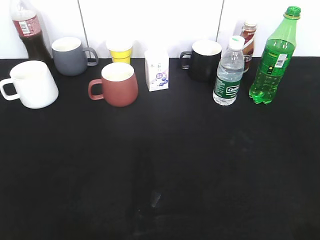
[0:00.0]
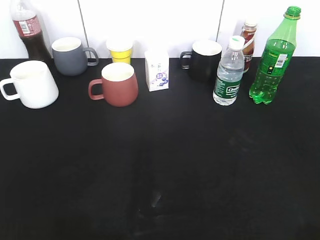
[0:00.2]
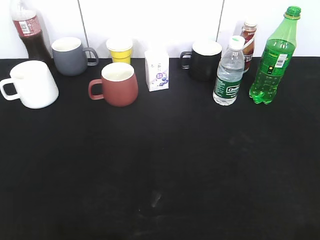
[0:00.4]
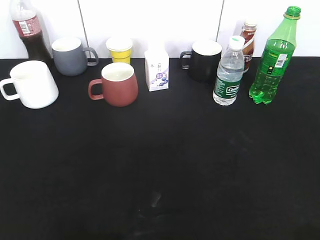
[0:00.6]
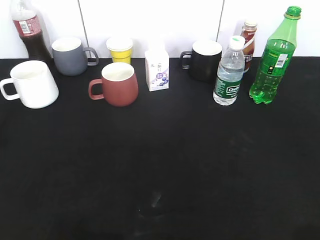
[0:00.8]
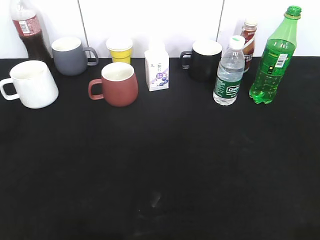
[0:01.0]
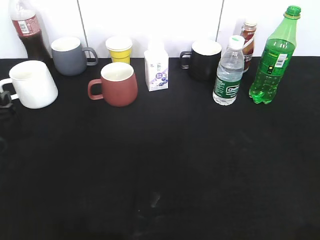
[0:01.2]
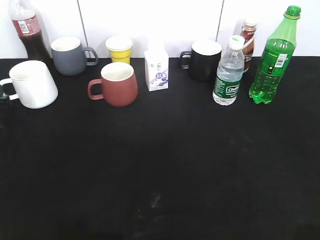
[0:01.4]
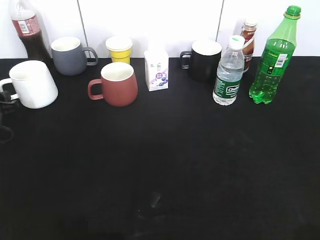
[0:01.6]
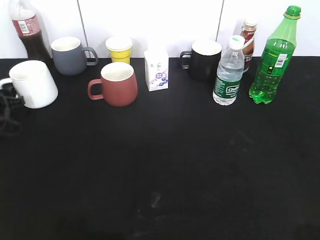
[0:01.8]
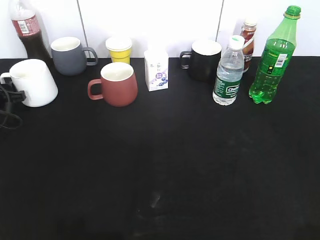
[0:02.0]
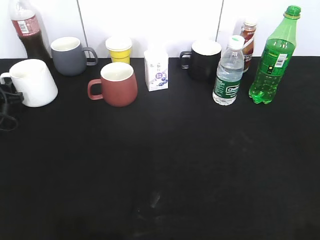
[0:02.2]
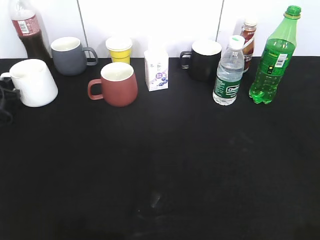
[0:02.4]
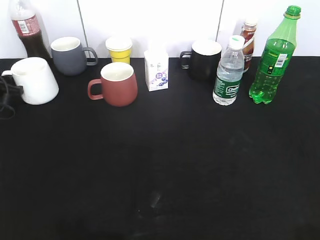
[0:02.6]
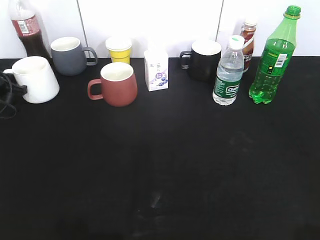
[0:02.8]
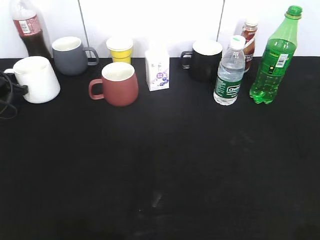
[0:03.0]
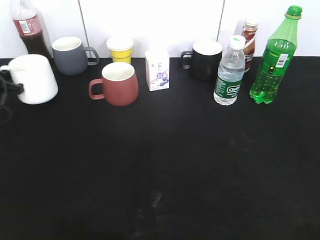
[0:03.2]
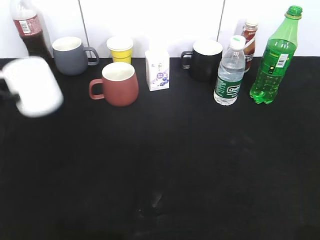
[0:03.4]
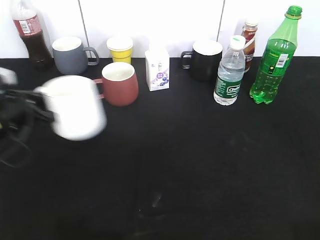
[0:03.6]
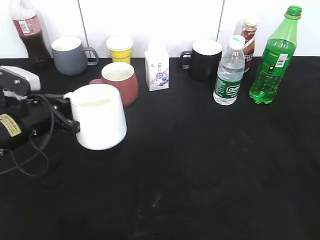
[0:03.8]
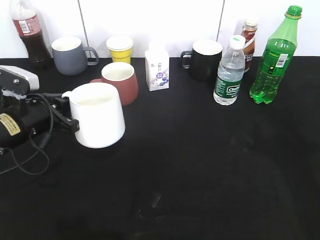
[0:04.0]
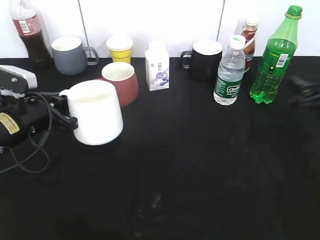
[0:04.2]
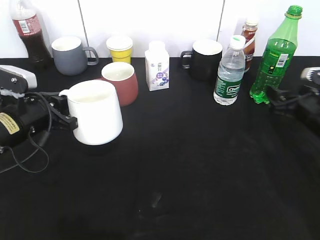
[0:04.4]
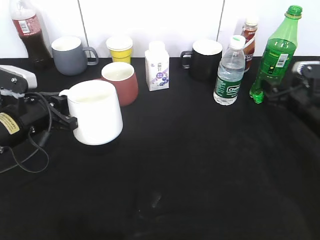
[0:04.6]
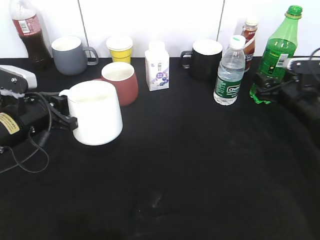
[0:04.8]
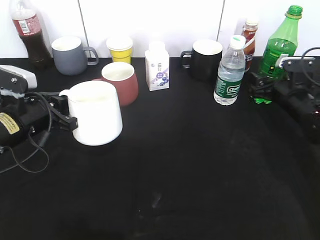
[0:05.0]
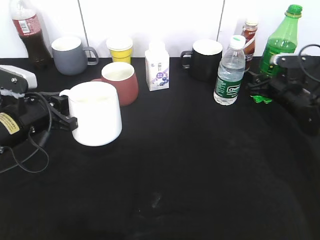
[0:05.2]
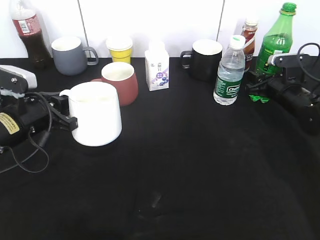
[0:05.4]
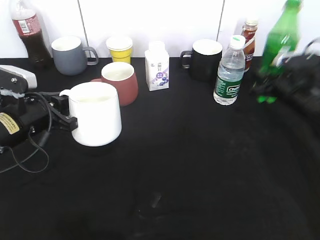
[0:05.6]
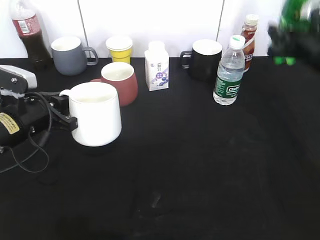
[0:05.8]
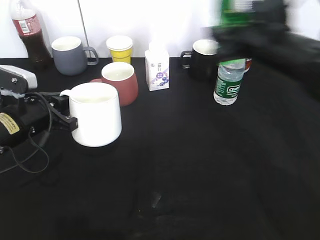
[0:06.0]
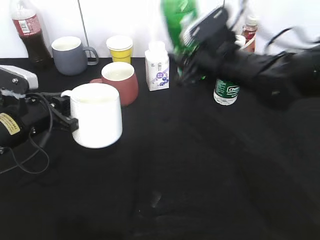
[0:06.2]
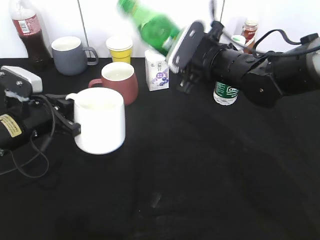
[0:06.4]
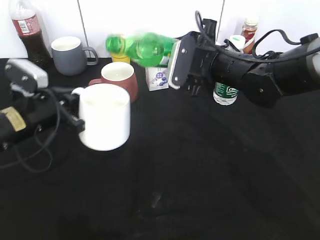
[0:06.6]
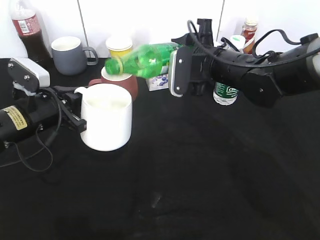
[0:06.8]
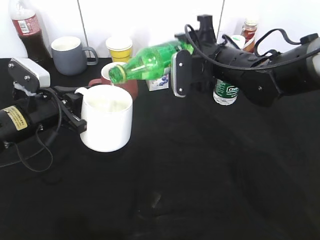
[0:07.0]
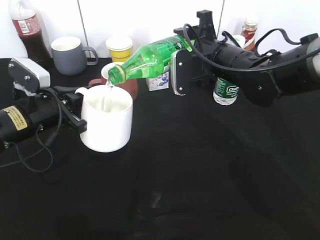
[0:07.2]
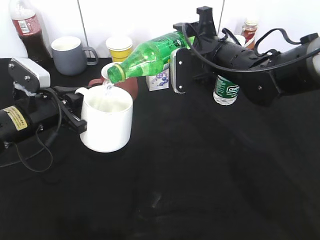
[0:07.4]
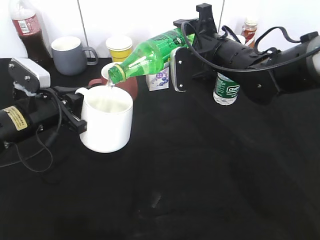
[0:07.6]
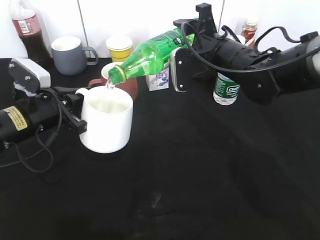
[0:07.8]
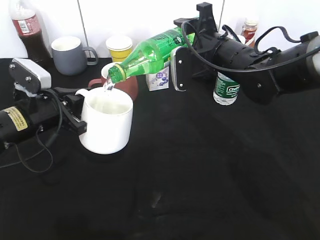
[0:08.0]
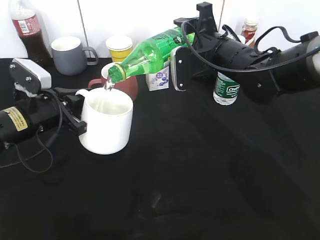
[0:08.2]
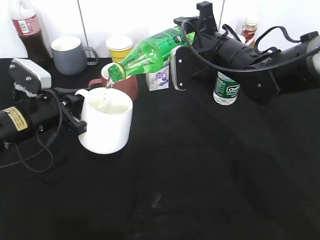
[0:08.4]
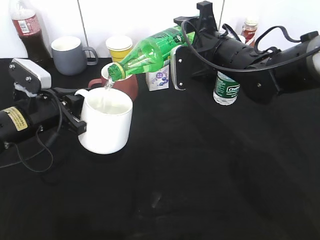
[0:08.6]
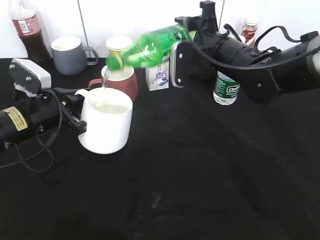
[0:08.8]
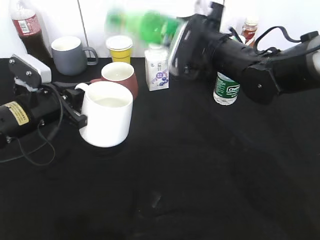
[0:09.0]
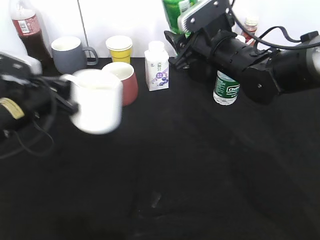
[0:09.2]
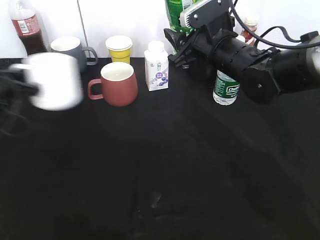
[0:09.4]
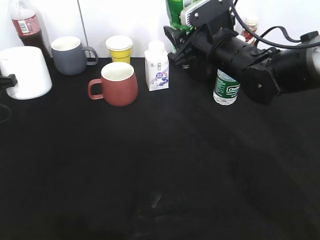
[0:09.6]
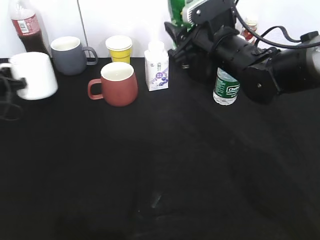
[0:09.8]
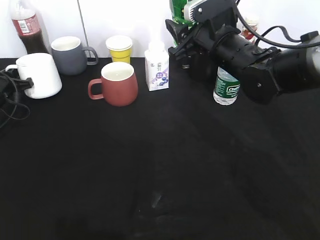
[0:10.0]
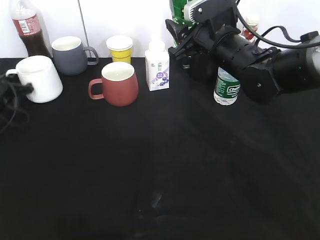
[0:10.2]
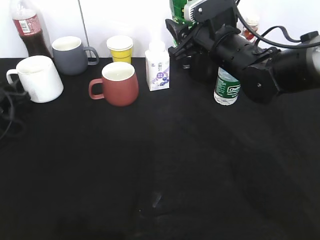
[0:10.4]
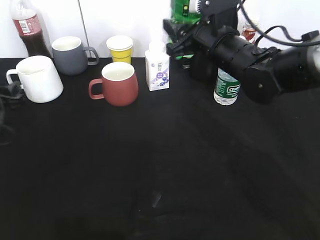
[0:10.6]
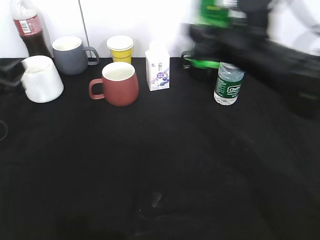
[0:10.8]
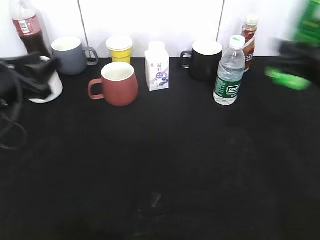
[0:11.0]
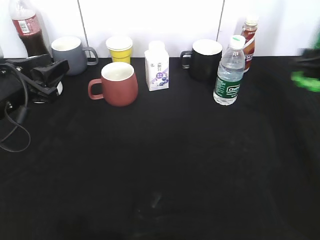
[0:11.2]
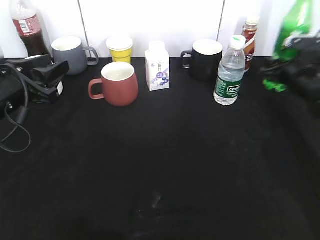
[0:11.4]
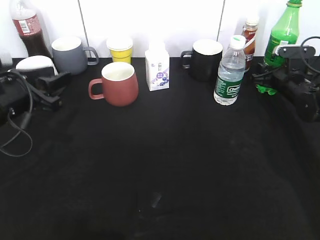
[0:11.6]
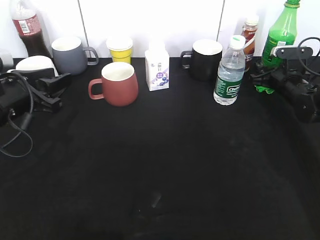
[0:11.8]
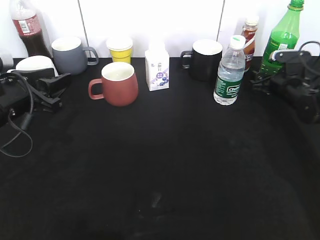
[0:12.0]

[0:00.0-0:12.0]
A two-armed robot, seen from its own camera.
Step, 0:00.0 to 0:02.8: Grasp the white cup with left gripper.
Step, 0:03.0 to 0:03.8: Lift the white cup with left gripper.
Step, 0:04.0 to 0:05.4: Grasp the bottle with sprite with right gripper.
Step, 0:05.6 to 0:08.8: Pour the sprite from bottle to cup with right gripper.
Step, 0:09.2 to 0:10.4: Place the white cup on the table with left gripper.
0:00.0 to 0:01.6: The left gripper shifts roughly 40 cm forward and downward.
0:01.6 to 0:03.0: The left gripper shifts roughly 10 cm forward, and closes its fingers.
0:03.0 to 0:04.4: The left gripper goes some 20 cm to the right and backward. The right gripper travels forward and downward by some 35 cm, and opens up.
0:04.4 to 0:06.0: The right gripper heads to the left and upward, covering about 20 cm, and closes.
0:06.0 to 0:07.6: The right gripper ends up approximately 5 cm from where it was.
0:09.0 to 0:10.4: The left gripper moves to the left, forward and downward, approximately 20 cm, and opens its fingers.
0:10.4 to 0:12.0: The left gripper heads to the right, upward and backward, covering about 20 cm. The right gripper heads to the right and downward, covering about 25 cm, and opens.

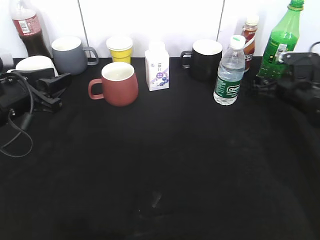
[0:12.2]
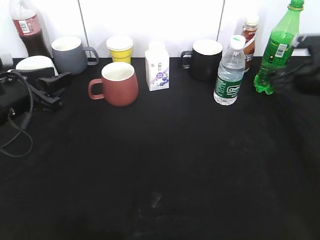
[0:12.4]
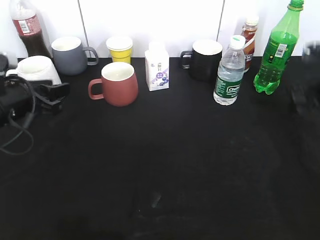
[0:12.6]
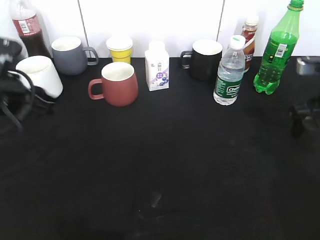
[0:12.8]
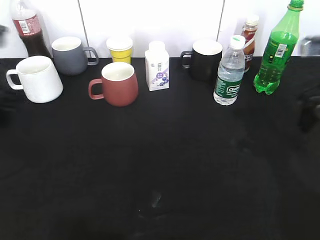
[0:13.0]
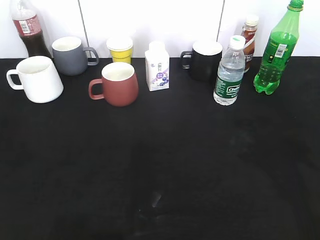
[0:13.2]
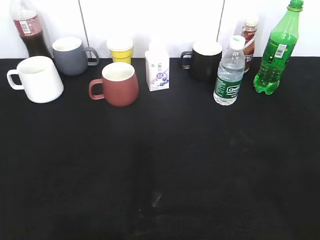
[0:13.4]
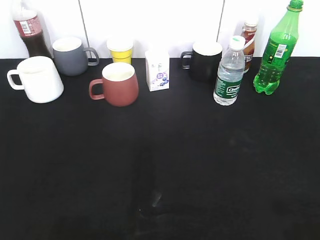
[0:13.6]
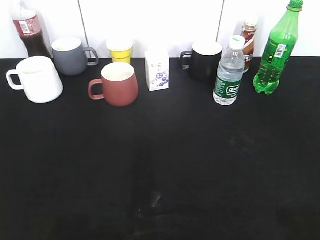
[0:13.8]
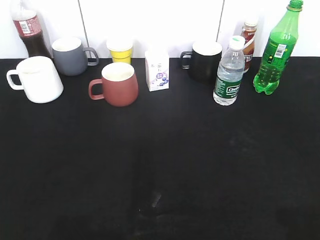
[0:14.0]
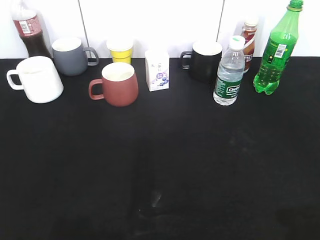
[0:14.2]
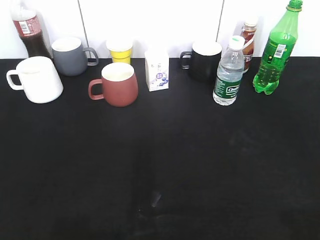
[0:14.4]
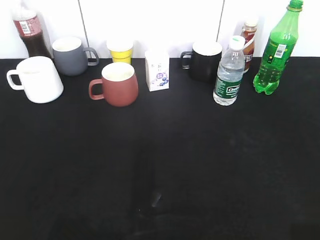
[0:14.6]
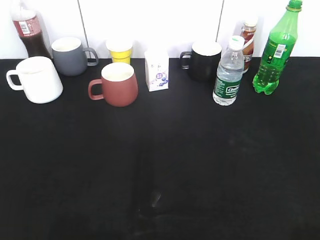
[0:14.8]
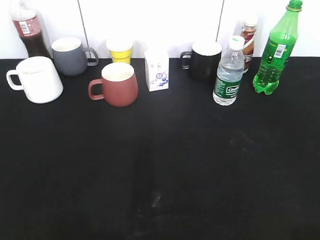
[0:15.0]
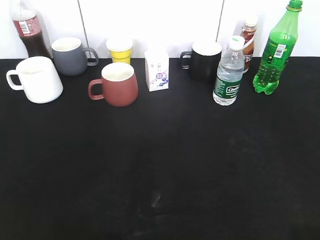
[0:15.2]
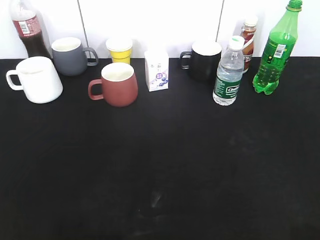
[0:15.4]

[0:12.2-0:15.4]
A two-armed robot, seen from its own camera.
0:12.2 to 0:13.8: The grippers both shift backward and upward by about 35 cm.

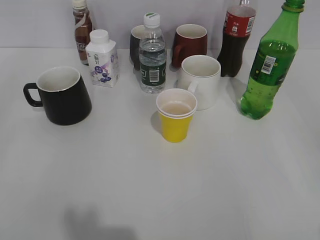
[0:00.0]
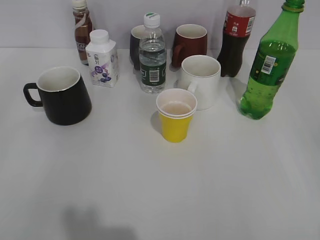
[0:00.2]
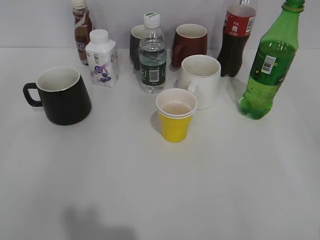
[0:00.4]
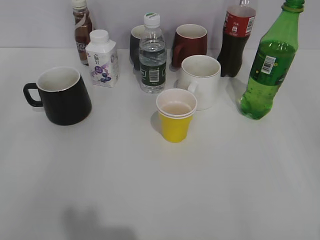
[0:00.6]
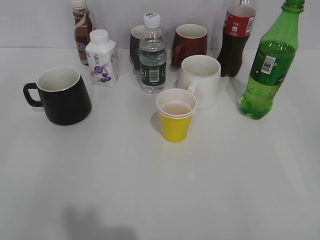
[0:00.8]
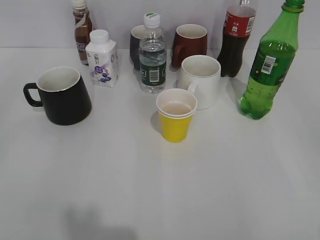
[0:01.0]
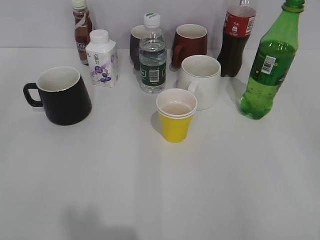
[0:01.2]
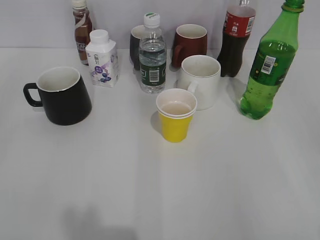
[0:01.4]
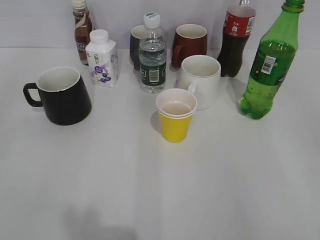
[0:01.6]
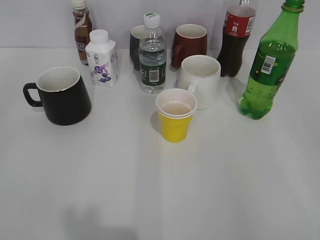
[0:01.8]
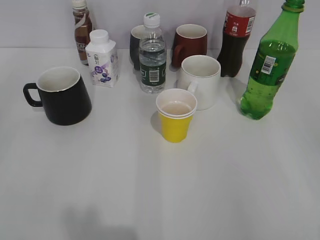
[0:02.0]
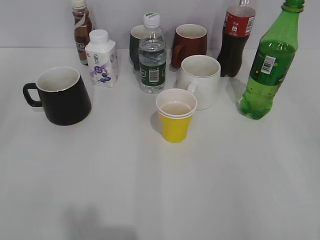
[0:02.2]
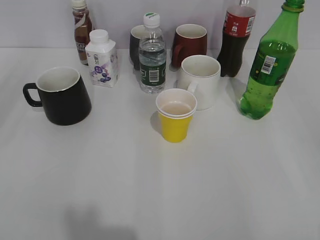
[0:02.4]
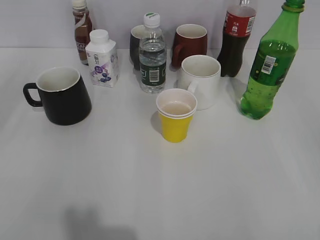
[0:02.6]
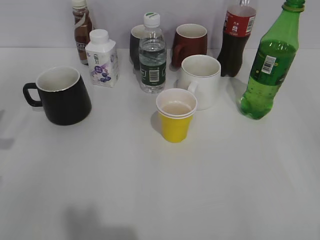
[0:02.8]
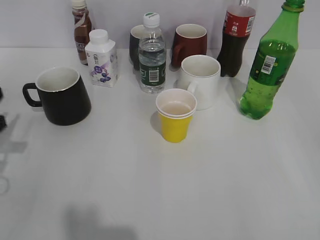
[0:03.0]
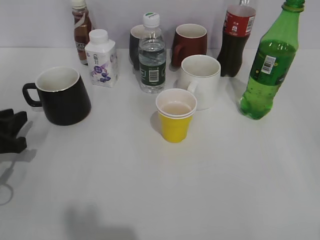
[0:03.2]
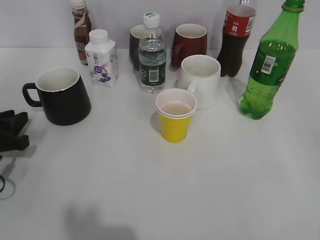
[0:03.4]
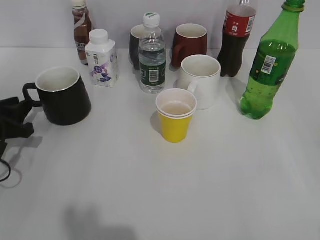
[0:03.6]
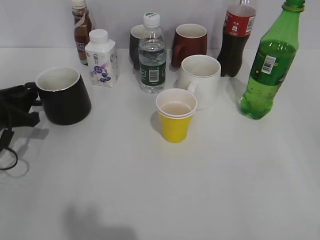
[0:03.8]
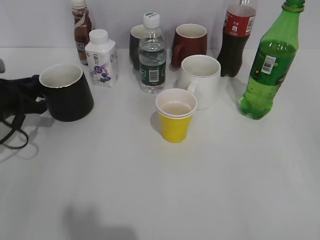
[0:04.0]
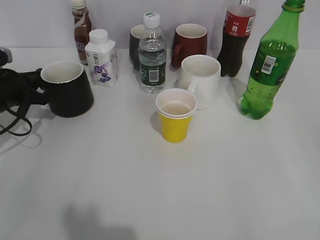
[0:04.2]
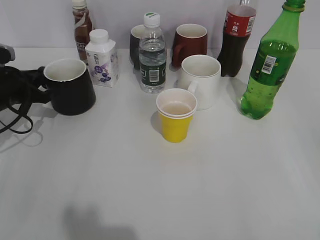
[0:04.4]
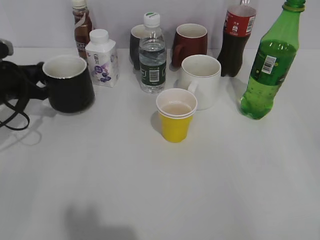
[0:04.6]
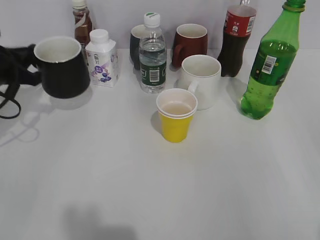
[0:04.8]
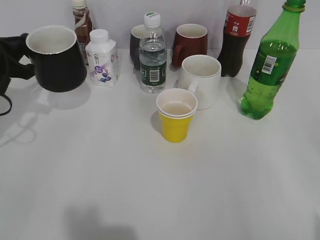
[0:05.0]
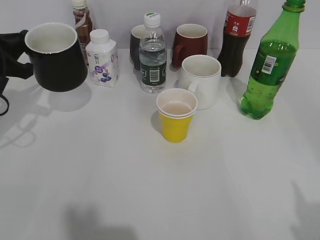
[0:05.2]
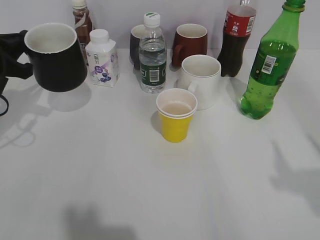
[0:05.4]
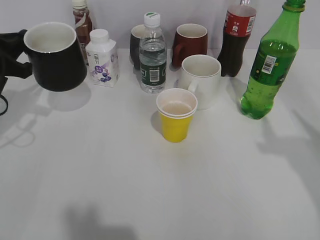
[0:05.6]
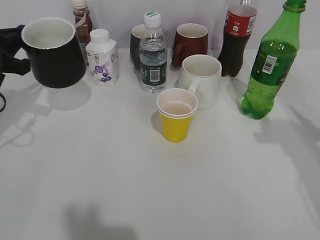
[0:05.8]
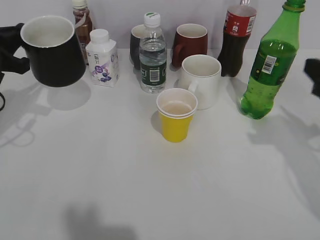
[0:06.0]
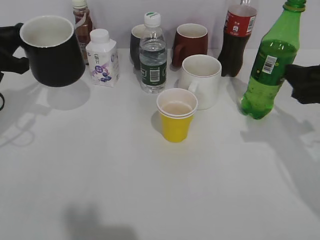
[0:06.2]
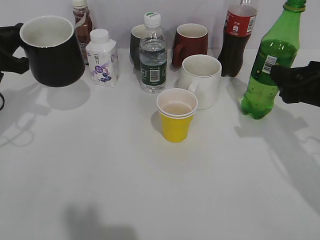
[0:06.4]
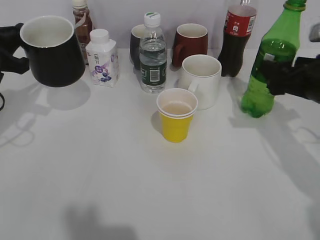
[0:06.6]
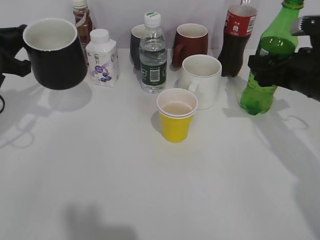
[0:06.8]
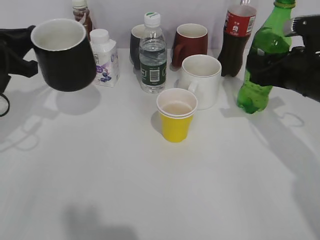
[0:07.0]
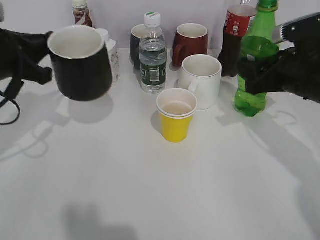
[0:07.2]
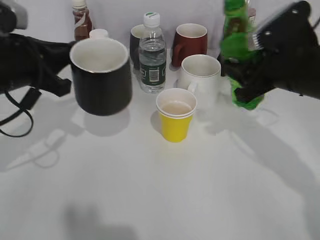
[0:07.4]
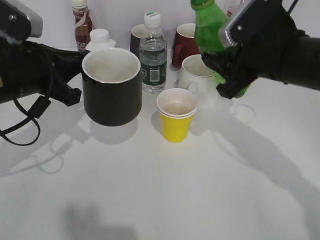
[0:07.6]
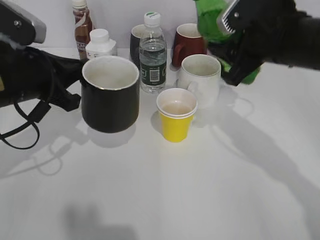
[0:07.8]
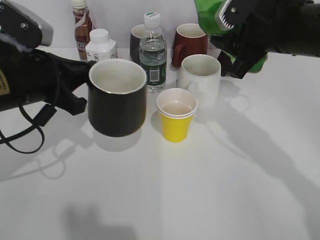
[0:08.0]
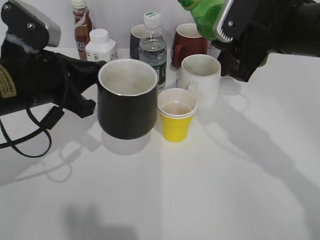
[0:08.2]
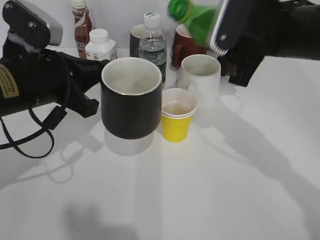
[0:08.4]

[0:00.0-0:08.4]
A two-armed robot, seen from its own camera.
Step, 0:01.8 to 0:04.2: Grasp the black cup with left gripper.
Step, 0:04.4 to 0:05.6: Lift the black cup with left gripper.
Step, 0:05.8 to 0:06.8: Grasp the bottle with sprite with right gripper.
0:02.8 to 0:04.2: The left gripper shifts some 15 cm forward and downward, and closes up.
0:04.2 to 0:05.6: The left gripper goes approximately 10 cm upward.
0:05.6 to 0:07.0: The right gripper is displaced forward and downward by roughly 25 cm, and closes its fingers.
0:07.0 to 0:08.4: The left gripper travels to the right and backward by approximately 10 cm; the right gripper goes about 10 cm upward and to the left.
